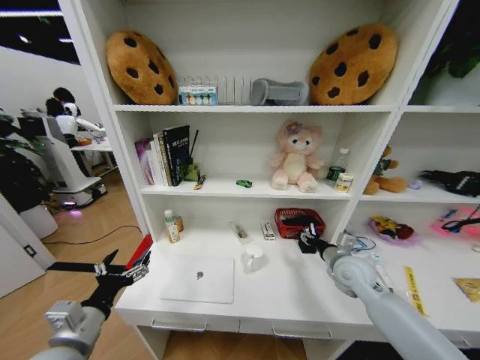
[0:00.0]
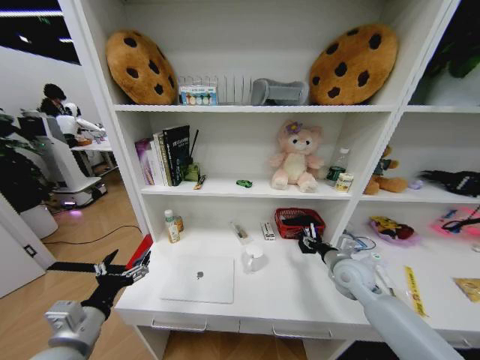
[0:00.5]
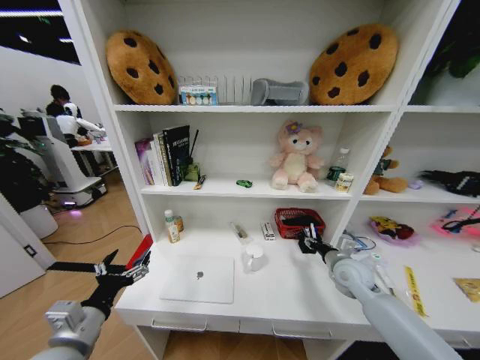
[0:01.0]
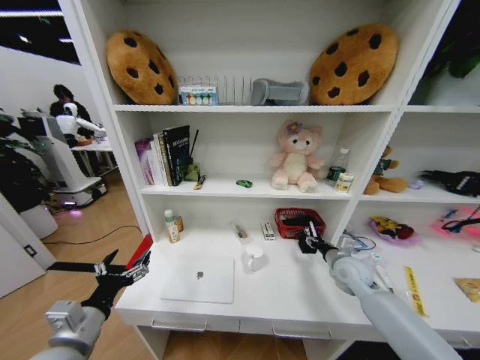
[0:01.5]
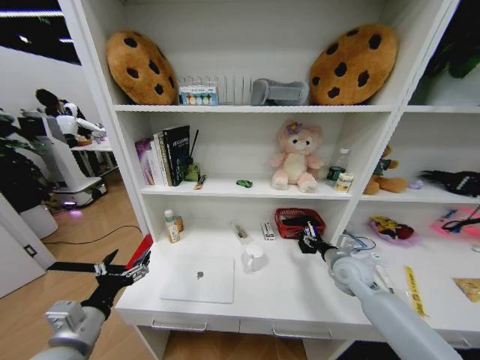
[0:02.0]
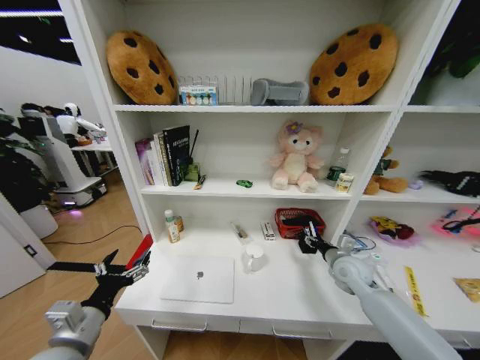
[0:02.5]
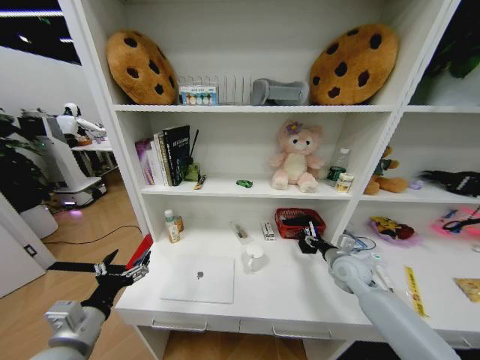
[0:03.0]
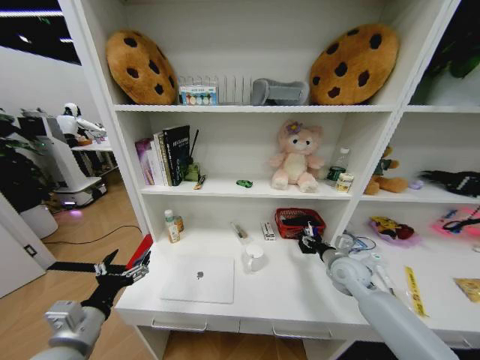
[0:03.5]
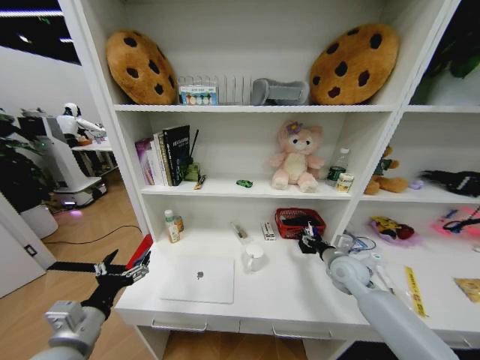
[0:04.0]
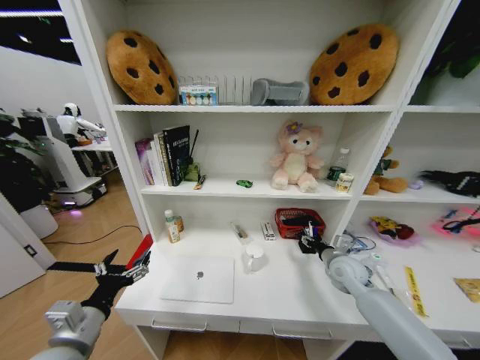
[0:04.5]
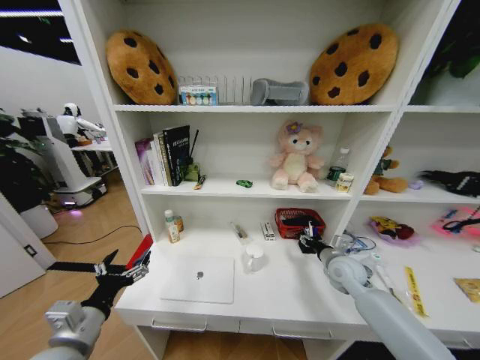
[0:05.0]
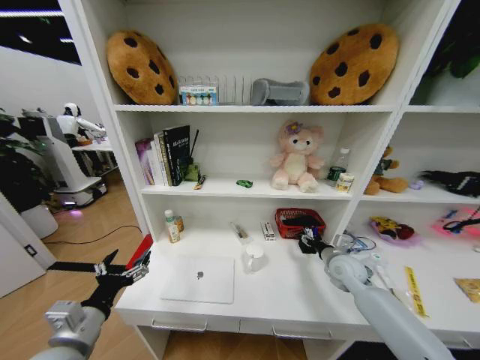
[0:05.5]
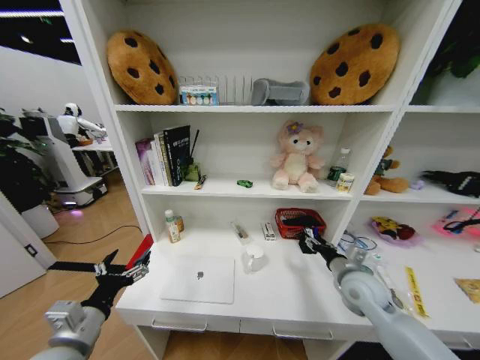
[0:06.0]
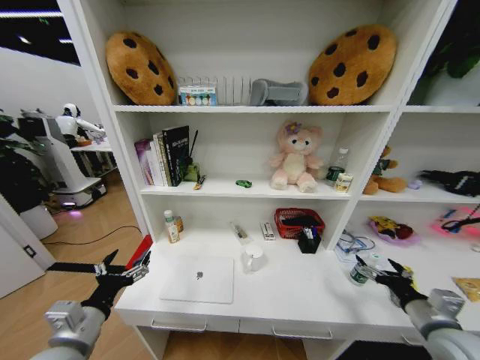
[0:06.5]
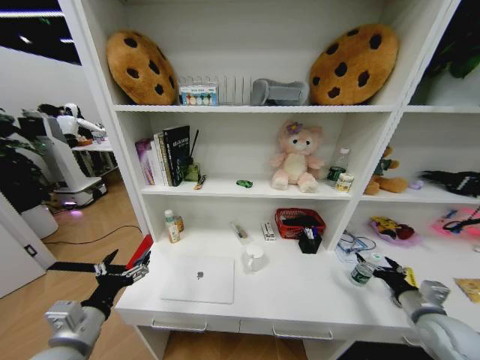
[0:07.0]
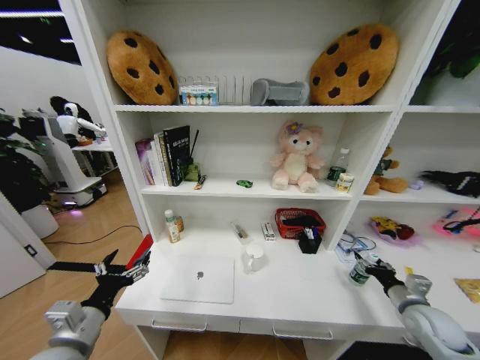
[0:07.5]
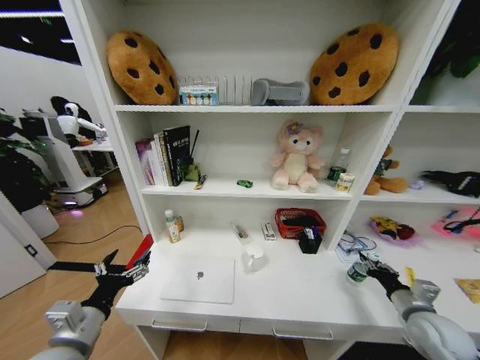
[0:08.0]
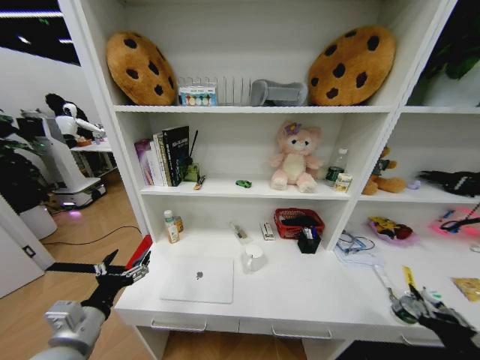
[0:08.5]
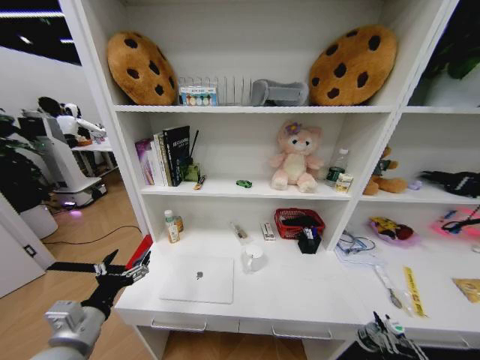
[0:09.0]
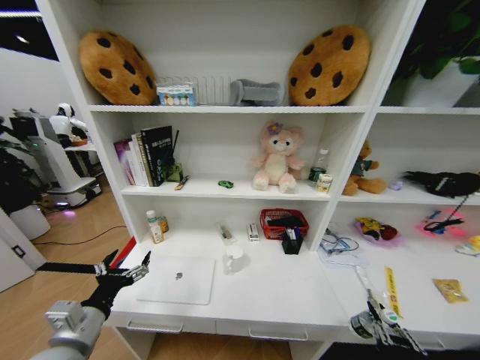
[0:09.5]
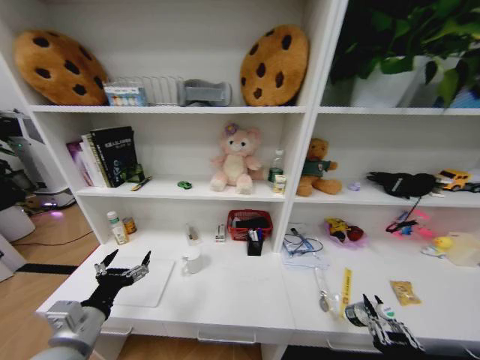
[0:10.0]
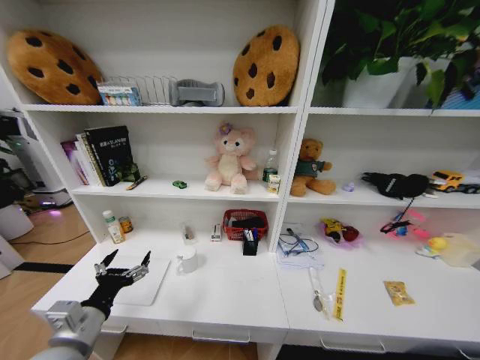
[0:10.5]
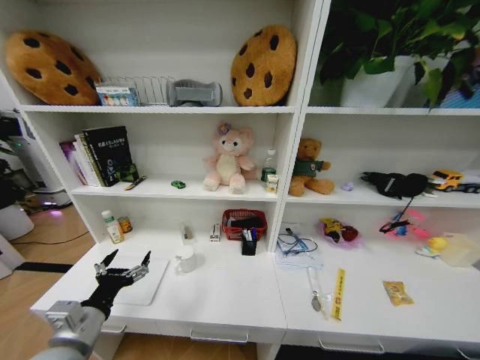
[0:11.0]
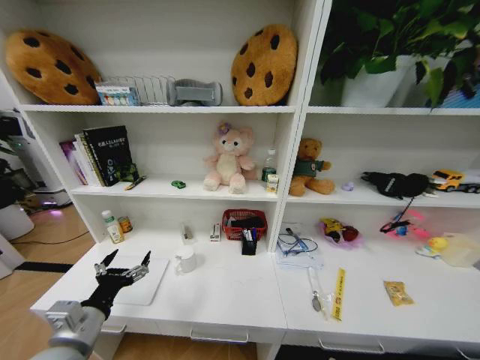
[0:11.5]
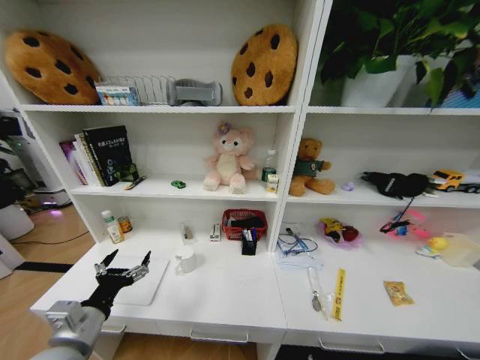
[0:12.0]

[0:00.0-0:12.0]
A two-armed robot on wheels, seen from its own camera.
Task of the whole recording: Organize the objects on the table.
0:00.0 to 0:04.0: The grippers stay close to where they were, moving slightly.
0:04.0 to 0:06.0: The right gripper moves backward, some 5 cm.
0:06.0 to 0:08.0: The right gripper moves to the right and backward, about 15 cm, and closes.
0:08.0 to 0:10.0: The right gripper shifts some 25 cm backward and to the left.
0:10.0 to 0:12.0: The right gripper shifts some 35 cm downward.

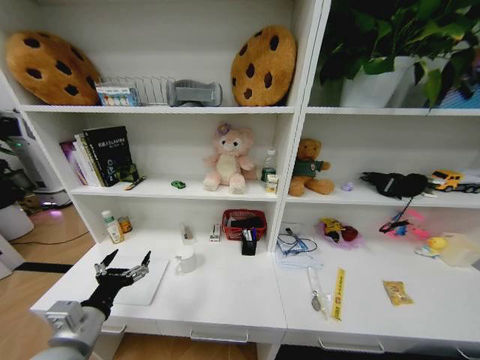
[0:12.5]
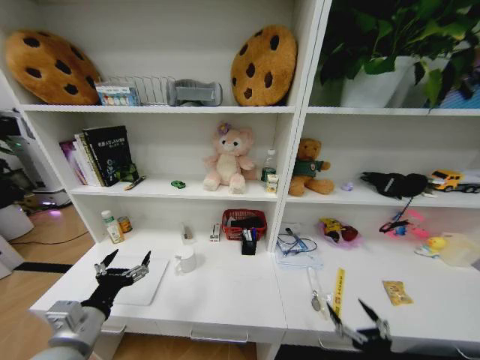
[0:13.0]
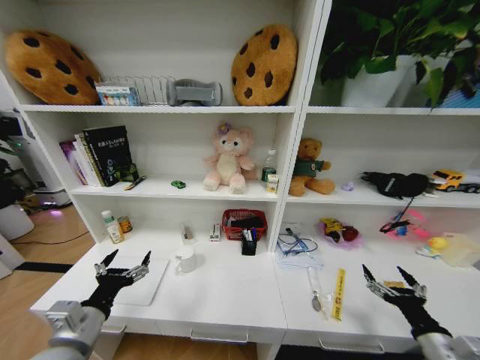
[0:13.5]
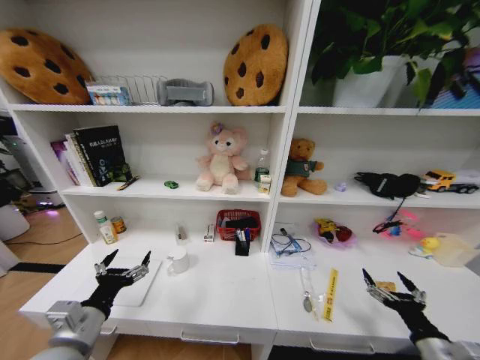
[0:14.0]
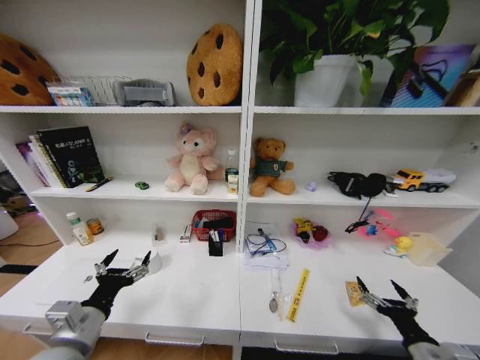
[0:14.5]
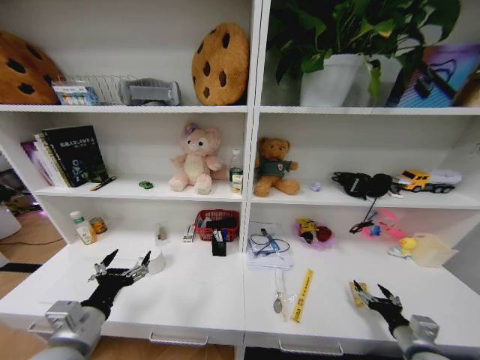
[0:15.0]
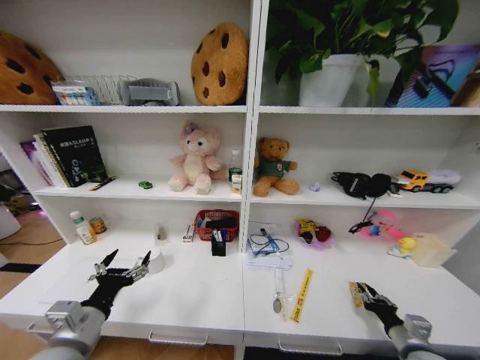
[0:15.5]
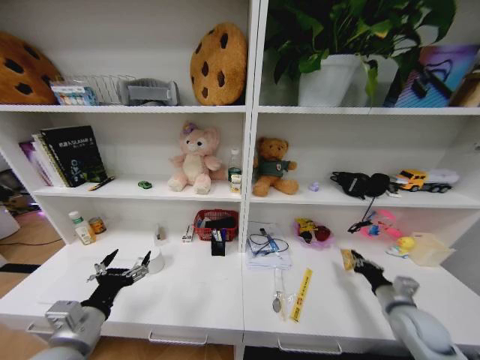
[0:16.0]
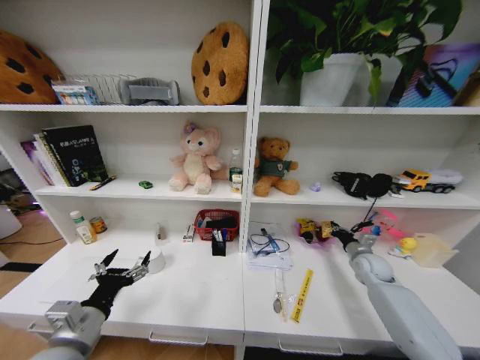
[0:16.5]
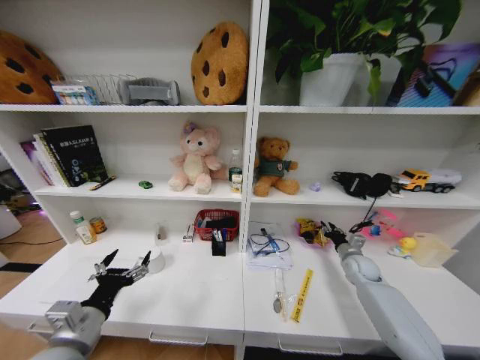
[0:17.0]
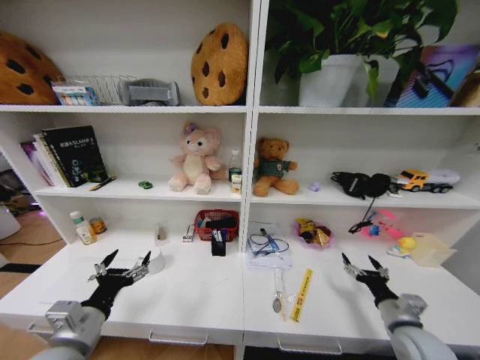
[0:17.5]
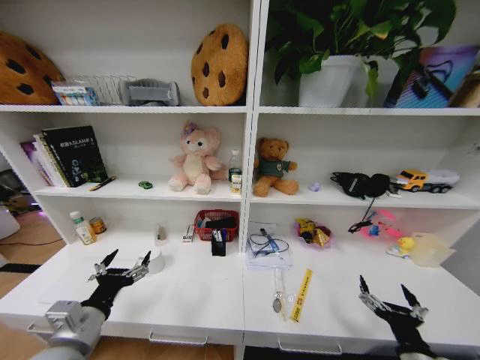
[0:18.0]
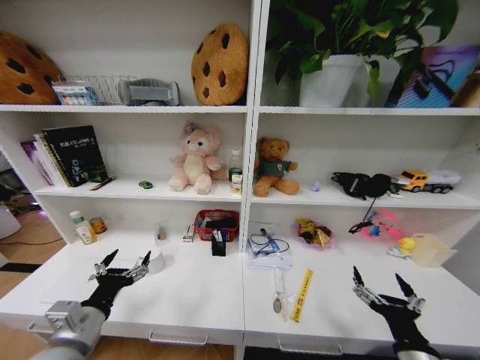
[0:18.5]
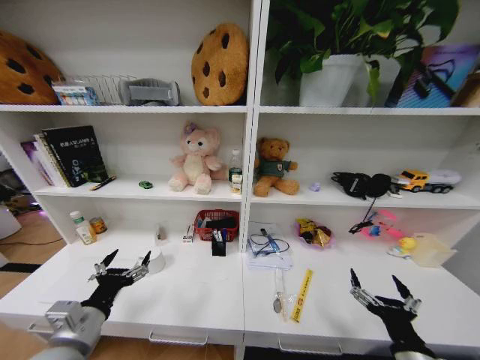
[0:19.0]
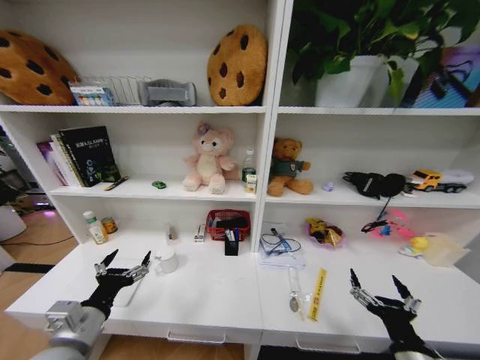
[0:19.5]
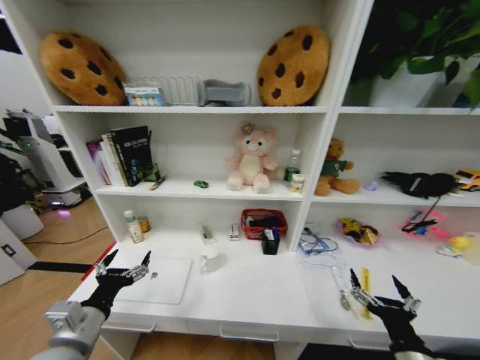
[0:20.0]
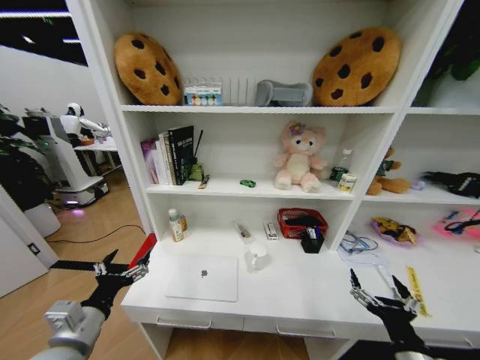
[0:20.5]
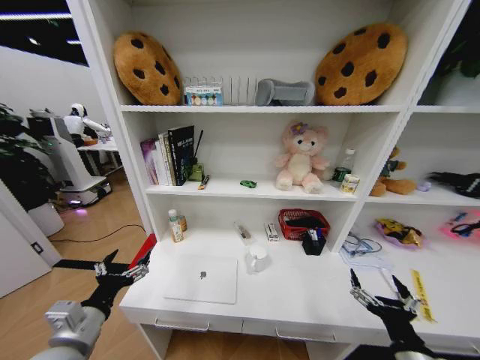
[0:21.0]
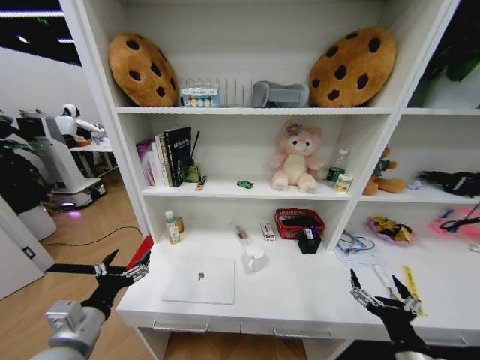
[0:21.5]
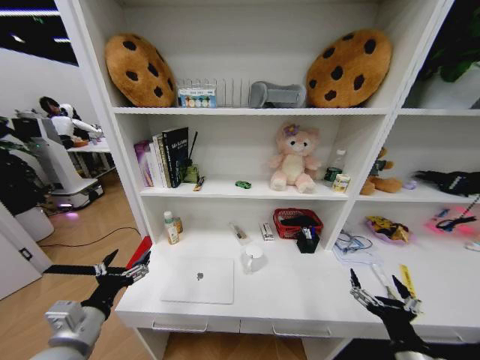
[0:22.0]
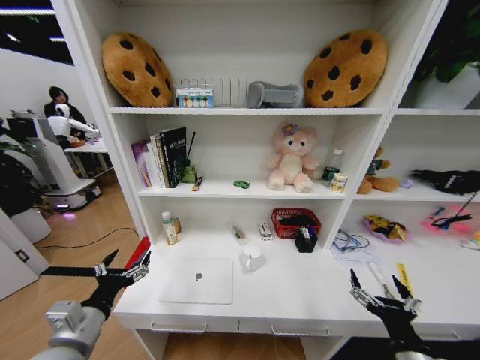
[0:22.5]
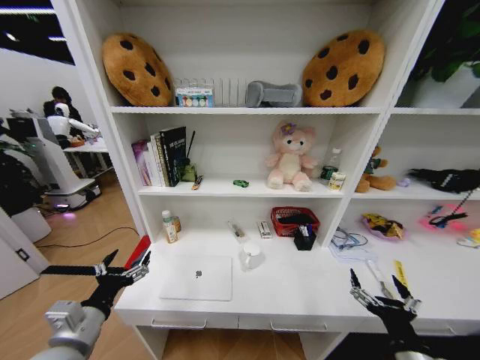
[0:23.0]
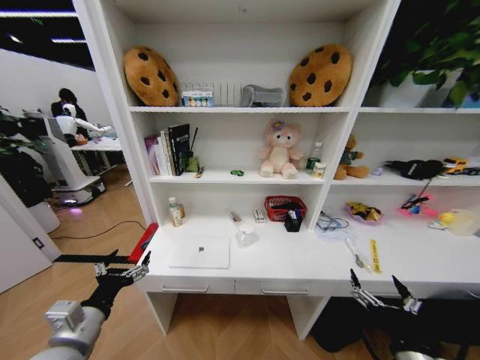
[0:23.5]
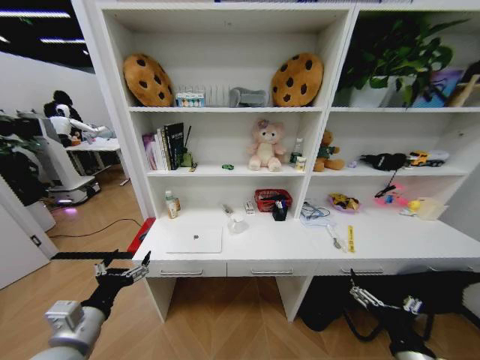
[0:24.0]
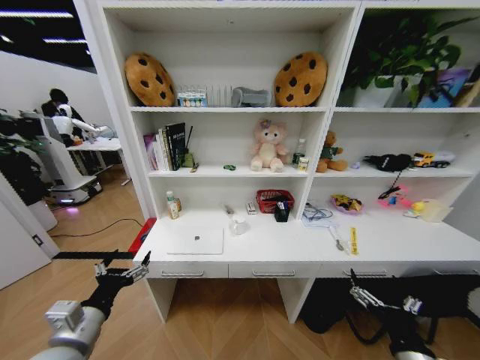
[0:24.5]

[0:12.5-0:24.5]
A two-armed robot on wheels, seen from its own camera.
Task of the whole recording: Organize the objects on the table.
0:12.5 to 0:14.5: The right gripper goes roughly 25 cm upward and forward.
0:14.5 to 0:16.5: The right gripper heads forward, covering some 30 cm, and closes up.
0:16.5 to 0:18.5: The right gripper moves backward, some 35 cm, and opens up.

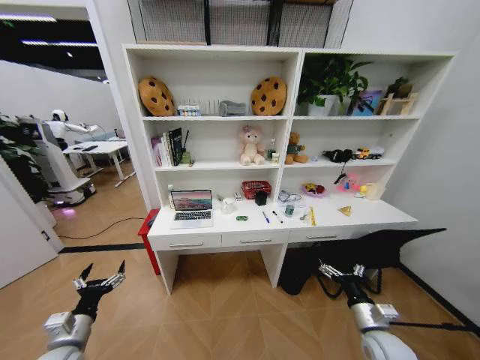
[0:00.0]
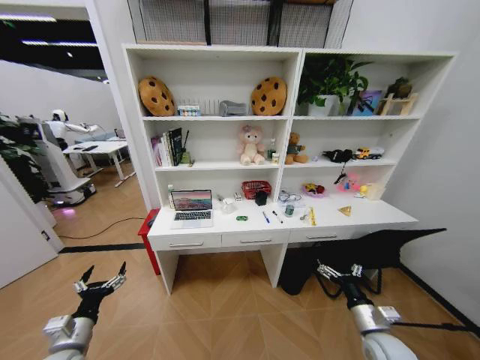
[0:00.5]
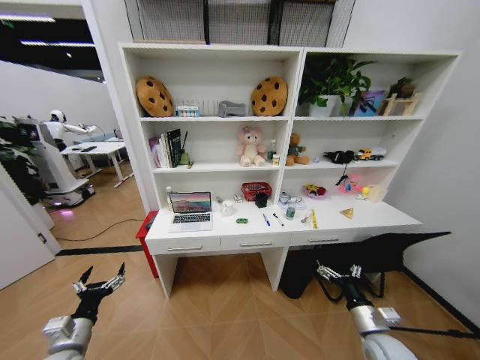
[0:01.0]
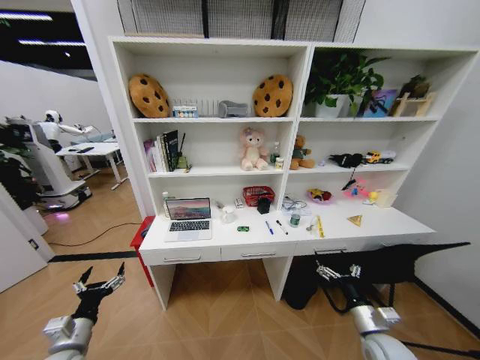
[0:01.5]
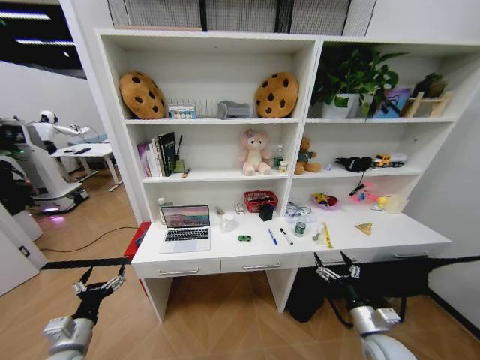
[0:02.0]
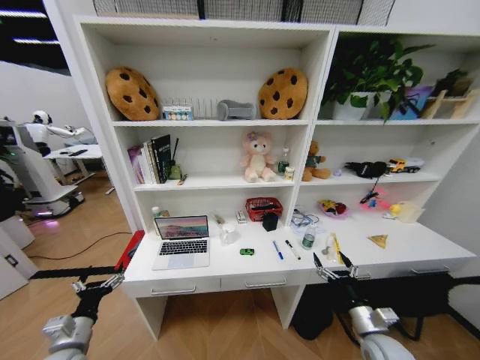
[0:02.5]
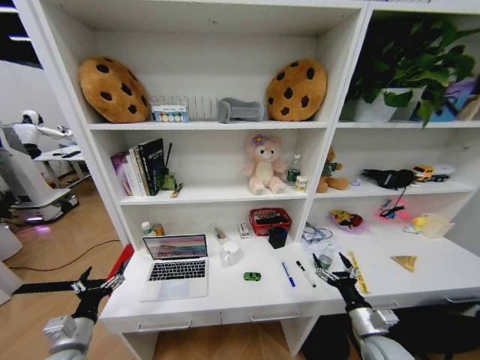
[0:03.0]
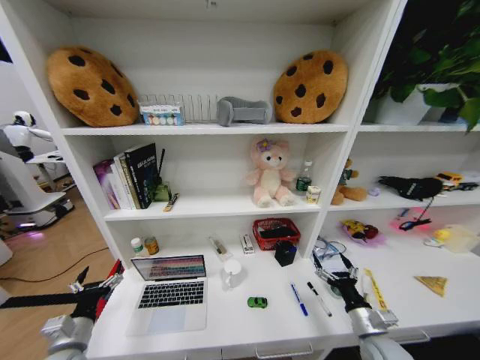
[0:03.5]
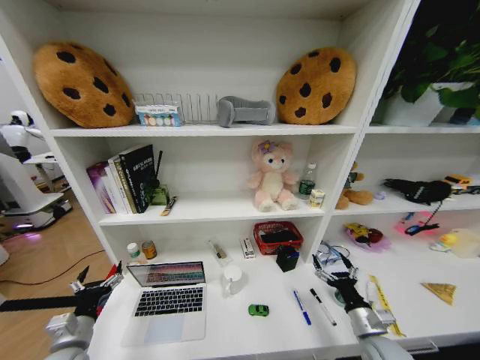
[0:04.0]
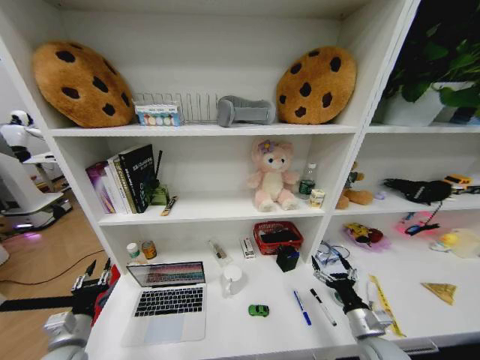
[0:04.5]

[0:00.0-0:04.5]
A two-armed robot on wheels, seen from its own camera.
Task of the whole recording: Organize the objects on the table.
0:02.0 to 0:04.5: The left gripper closes its fingers.
